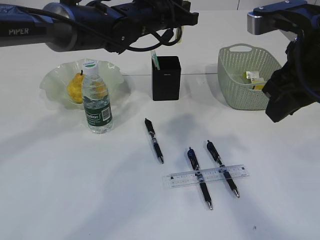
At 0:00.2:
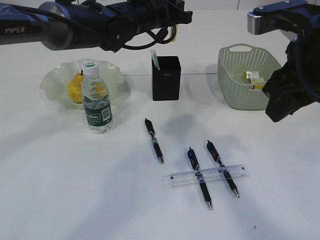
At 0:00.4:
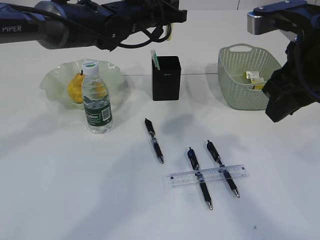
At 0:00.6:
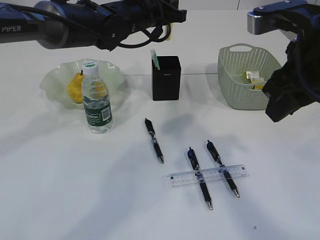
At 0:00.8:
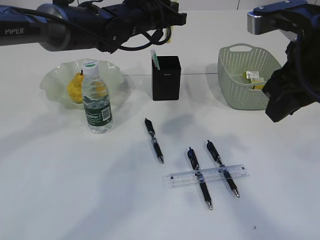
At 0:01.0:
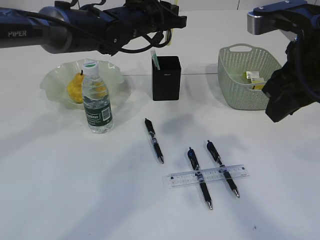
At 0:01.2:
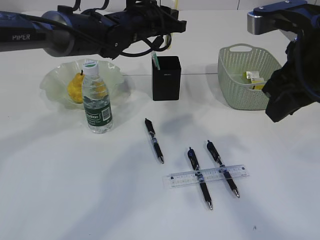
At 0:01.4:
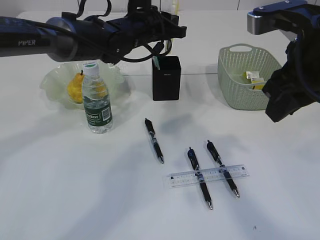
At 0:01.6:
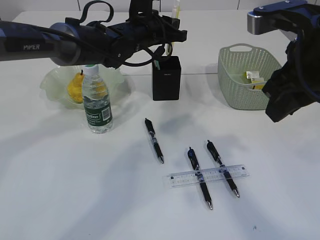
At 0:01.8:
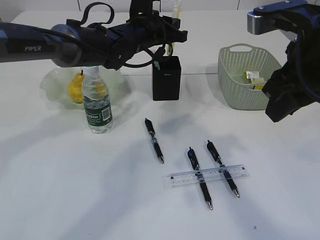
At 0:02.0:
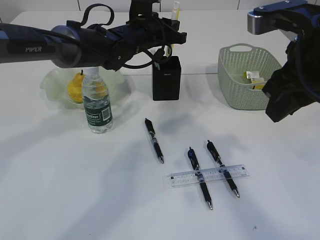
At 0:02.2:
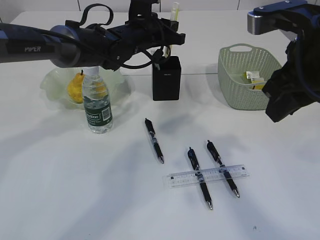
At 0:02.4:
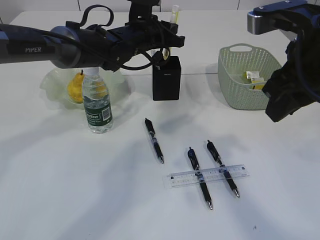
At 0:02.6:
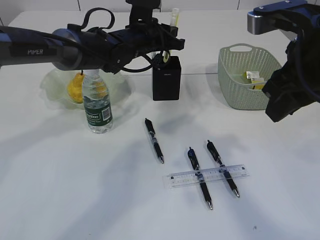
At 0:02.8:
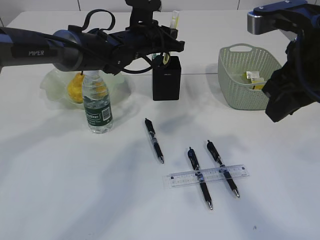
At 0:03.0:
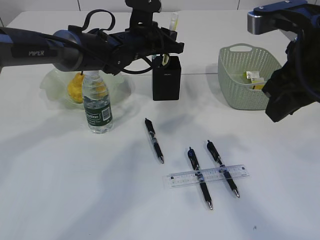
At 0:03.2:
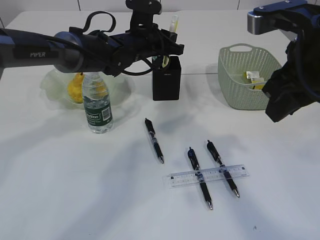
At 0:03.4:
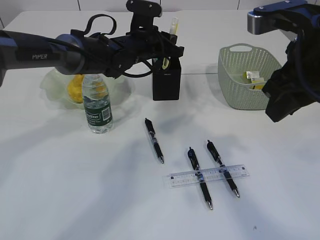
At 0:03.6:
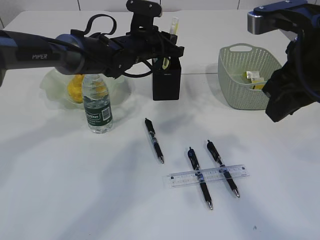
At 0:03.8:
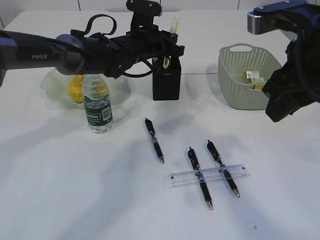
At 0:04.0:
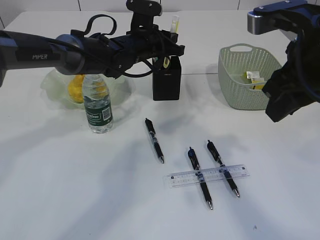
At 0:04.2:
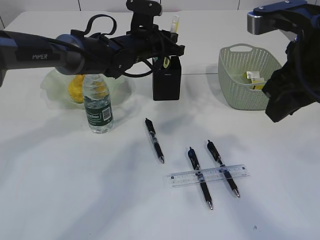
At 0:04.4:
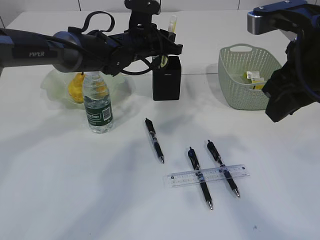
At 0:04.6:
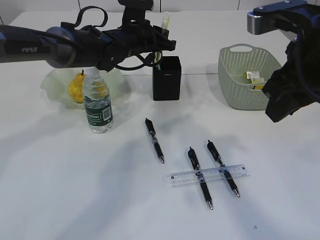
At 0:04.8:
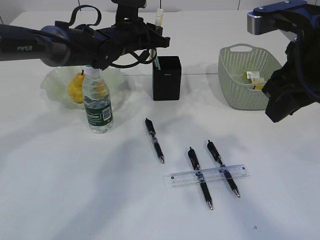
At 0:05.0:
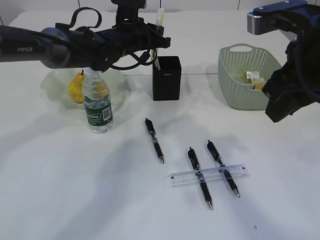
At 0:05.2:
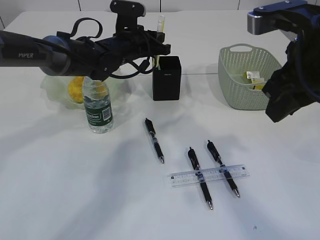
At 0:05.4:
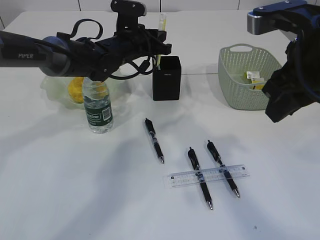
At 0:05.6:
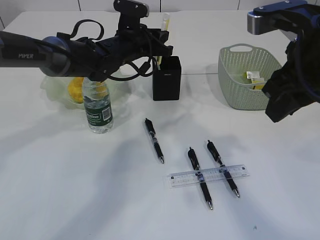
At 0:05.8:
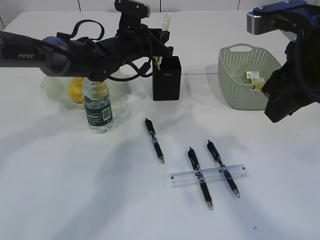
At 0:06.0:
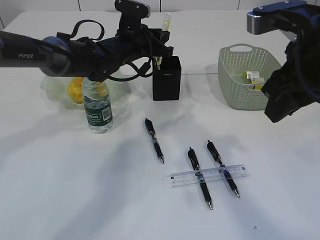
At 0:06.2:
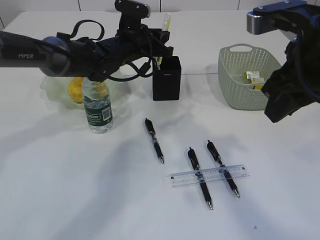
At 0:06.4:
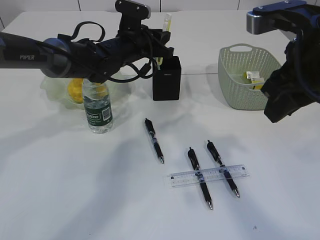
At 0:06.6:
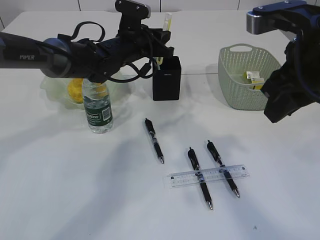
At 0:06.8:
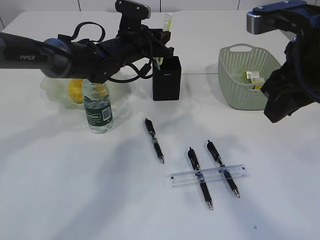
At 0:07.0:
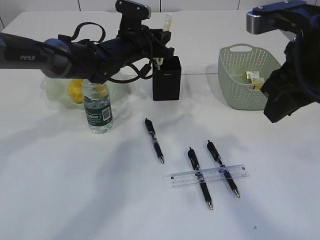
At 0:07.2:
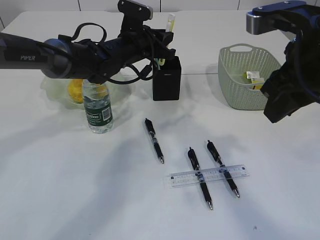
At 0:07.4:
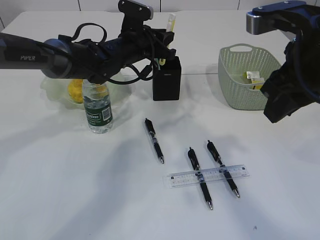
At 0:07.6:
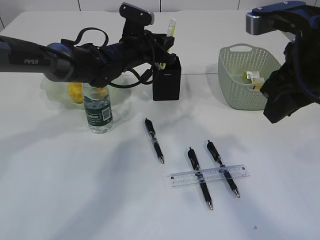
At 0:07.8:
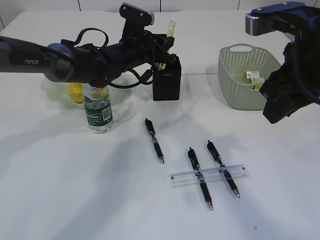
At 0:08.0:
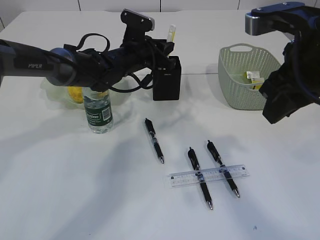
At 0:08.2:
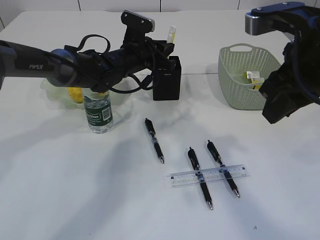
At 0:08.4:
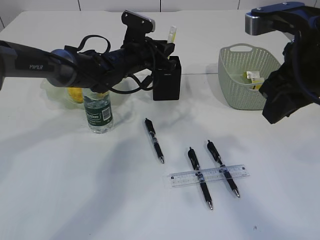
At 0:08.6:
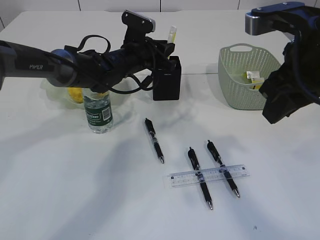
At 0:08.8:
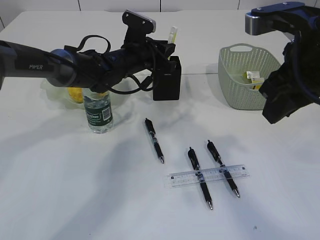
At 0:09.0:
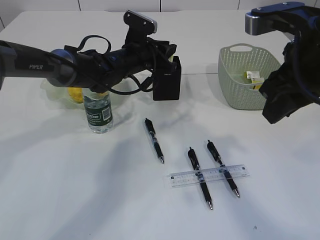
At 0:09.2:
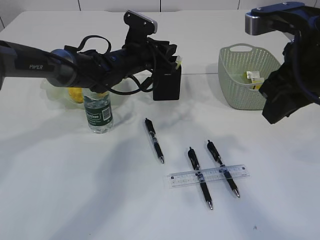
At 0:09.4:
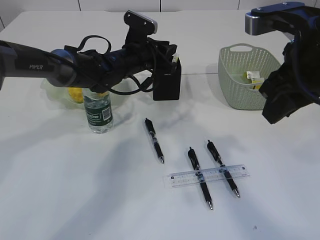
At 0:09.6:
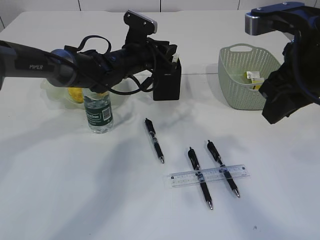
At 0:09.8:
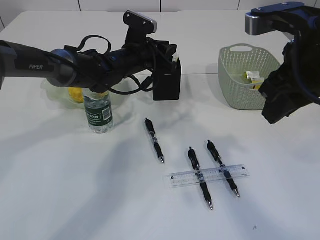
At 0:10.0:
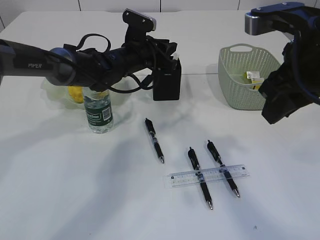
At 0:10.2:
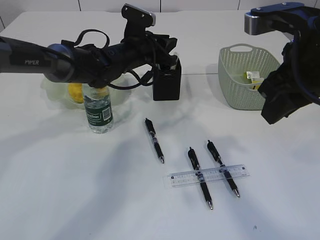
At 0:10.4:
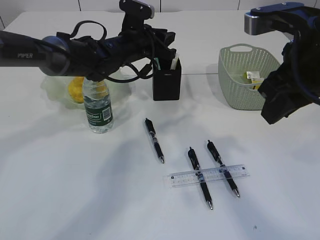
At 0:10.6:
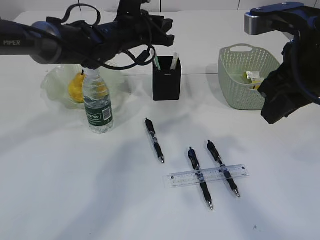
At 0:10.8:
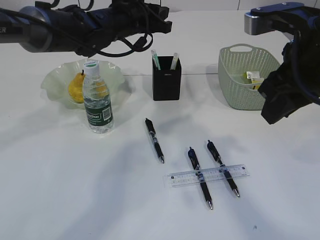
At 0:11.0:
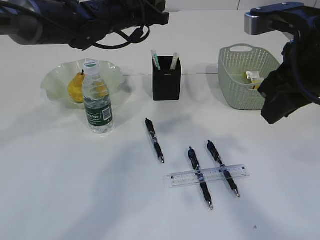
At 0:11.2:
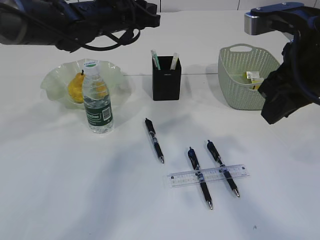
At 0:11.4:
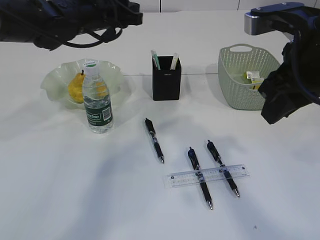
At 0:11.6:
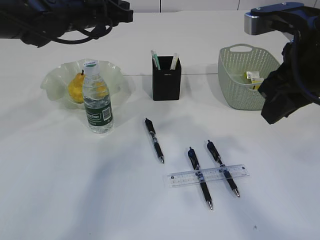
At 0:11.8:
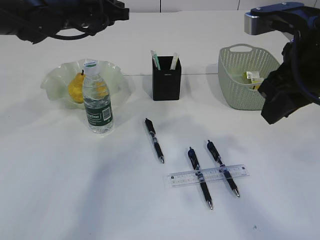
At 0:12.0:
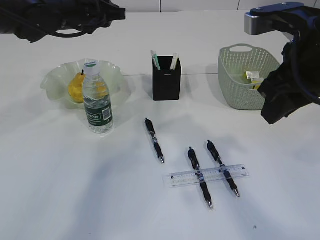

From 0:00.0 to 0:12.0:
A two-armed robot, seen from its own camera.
Step, from 0:00.0 to 0:10.4: place the yellow knife into the pen holder.
From 0:00.0 to 0:01.6: The grippers make only small movements.
From 0:01.6 to 0:03.0: The grippers stay close to where they were, moving slightly.
From 0:03.0 to 0:04.4: Both grippers stay about where they are.
From 0:04.4 to 0:06.0: The grippers move only a little.
From 0:06.0 to 0:07.6: Both grippers stay about where they are.
From 0:07.6 to 0:10.4: The grippers move only a little.
From 0:10.4 to 0:12.0: The left gripper goes about 15 cm to the left and upward.

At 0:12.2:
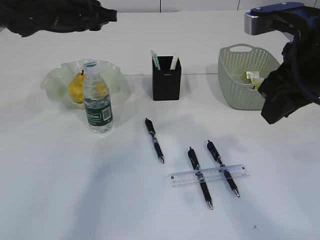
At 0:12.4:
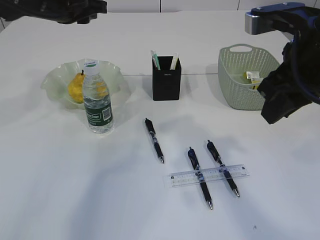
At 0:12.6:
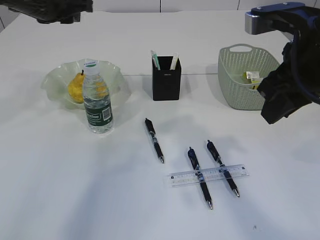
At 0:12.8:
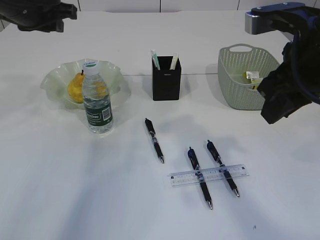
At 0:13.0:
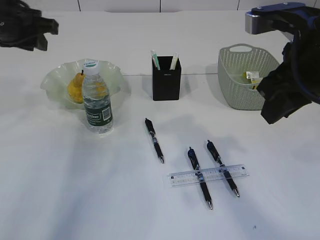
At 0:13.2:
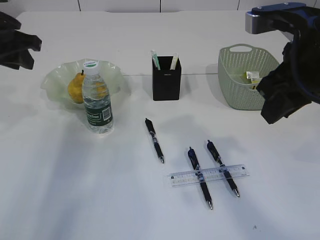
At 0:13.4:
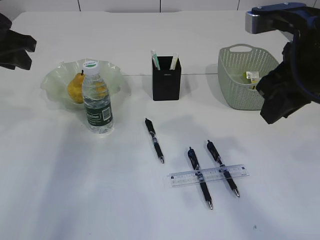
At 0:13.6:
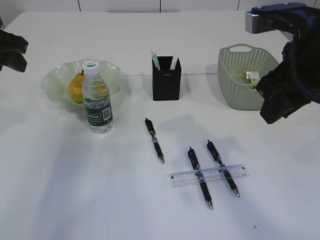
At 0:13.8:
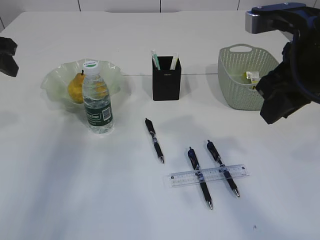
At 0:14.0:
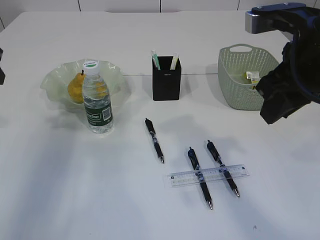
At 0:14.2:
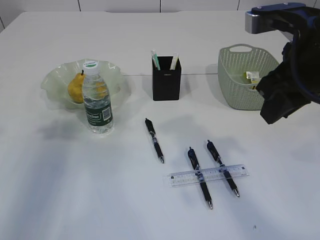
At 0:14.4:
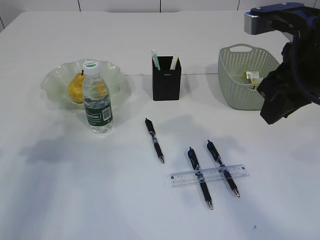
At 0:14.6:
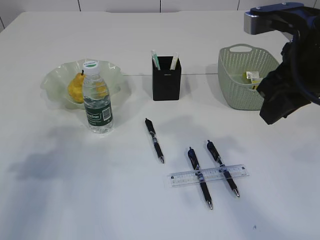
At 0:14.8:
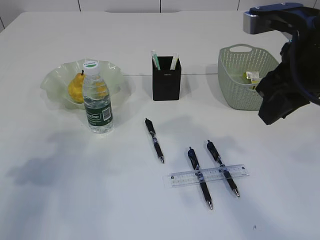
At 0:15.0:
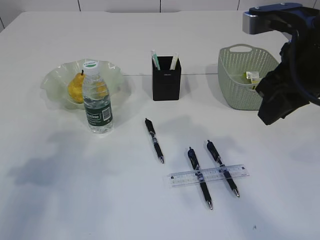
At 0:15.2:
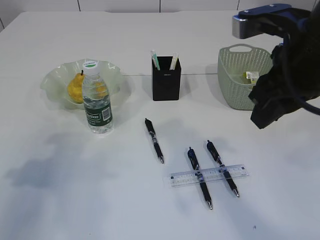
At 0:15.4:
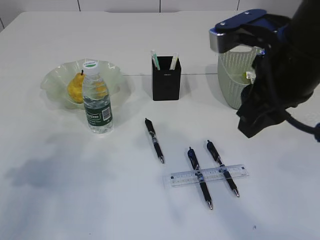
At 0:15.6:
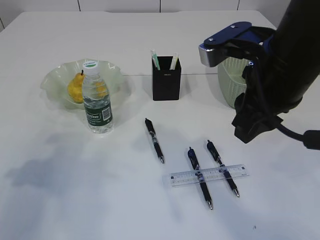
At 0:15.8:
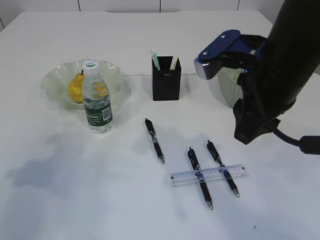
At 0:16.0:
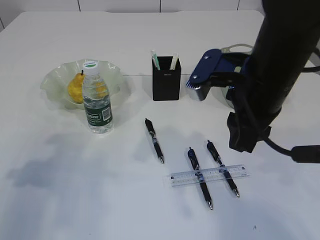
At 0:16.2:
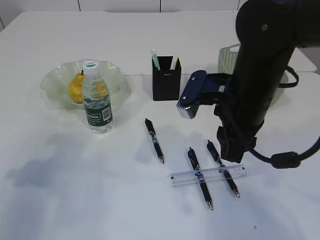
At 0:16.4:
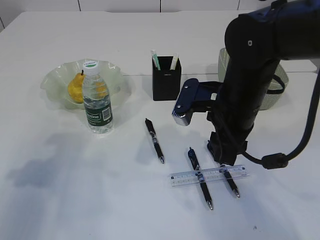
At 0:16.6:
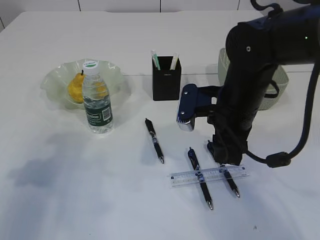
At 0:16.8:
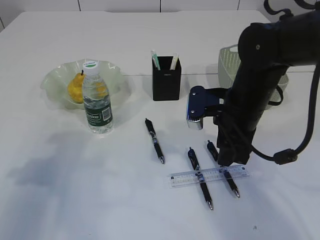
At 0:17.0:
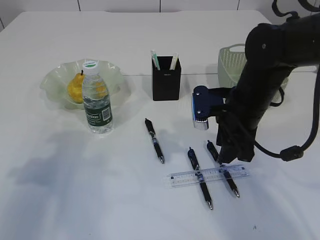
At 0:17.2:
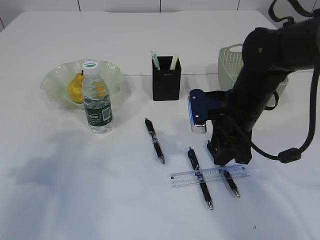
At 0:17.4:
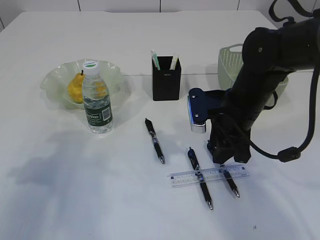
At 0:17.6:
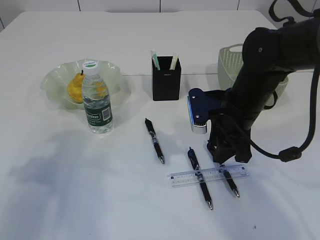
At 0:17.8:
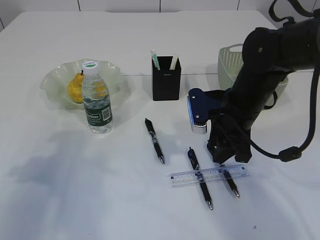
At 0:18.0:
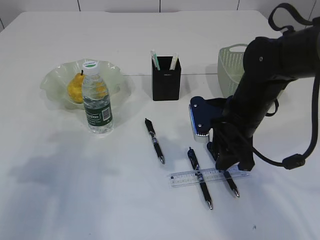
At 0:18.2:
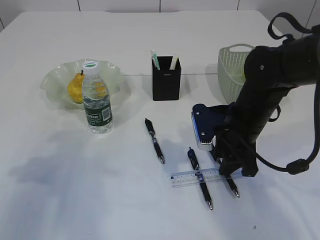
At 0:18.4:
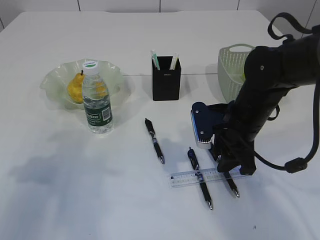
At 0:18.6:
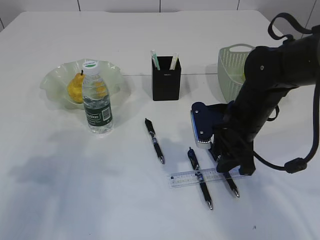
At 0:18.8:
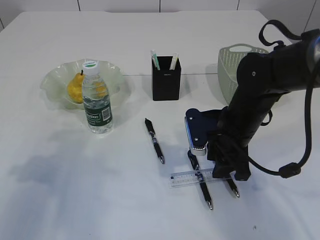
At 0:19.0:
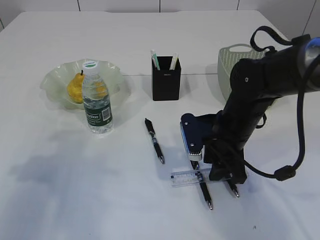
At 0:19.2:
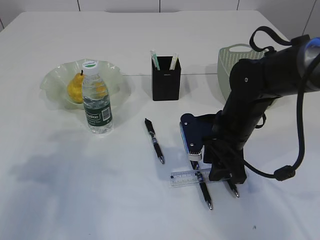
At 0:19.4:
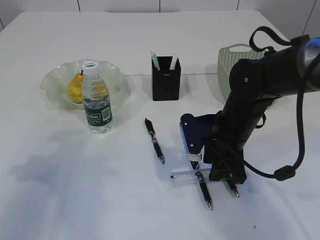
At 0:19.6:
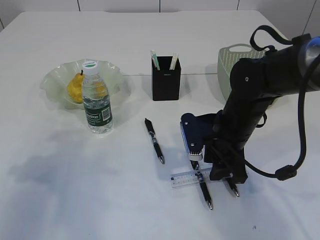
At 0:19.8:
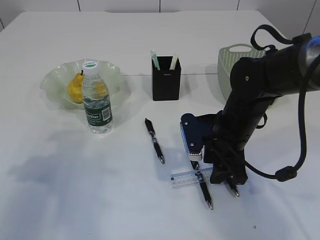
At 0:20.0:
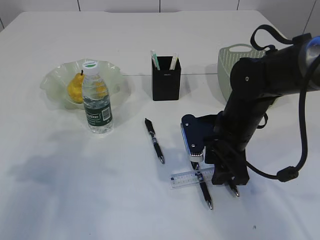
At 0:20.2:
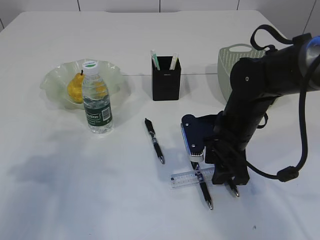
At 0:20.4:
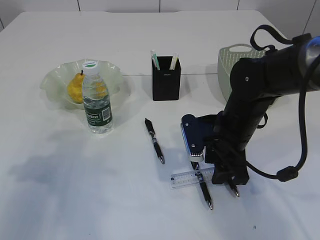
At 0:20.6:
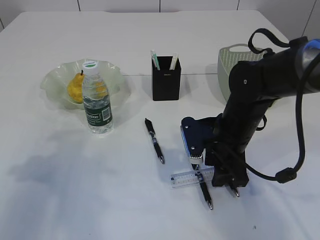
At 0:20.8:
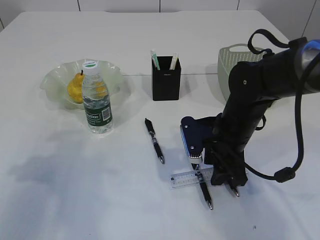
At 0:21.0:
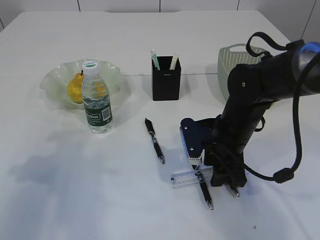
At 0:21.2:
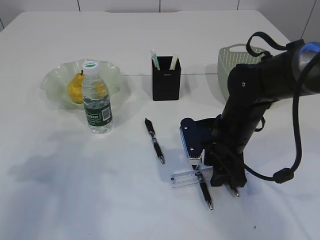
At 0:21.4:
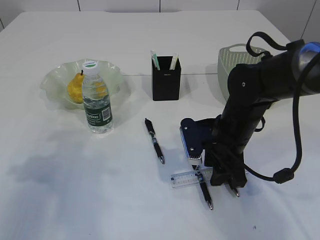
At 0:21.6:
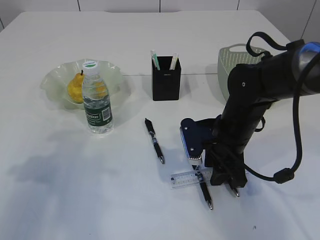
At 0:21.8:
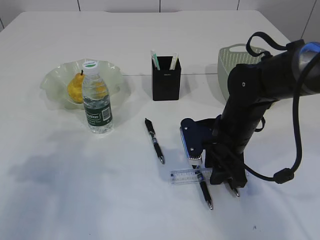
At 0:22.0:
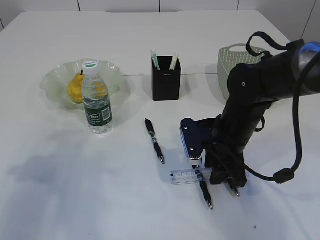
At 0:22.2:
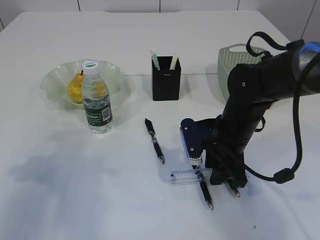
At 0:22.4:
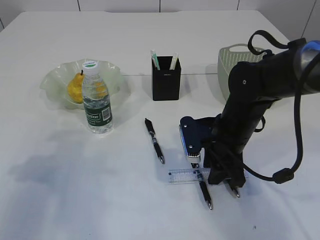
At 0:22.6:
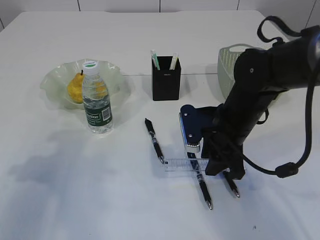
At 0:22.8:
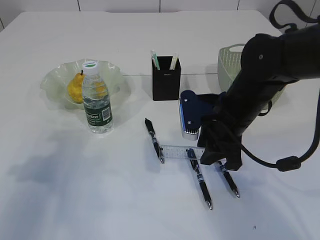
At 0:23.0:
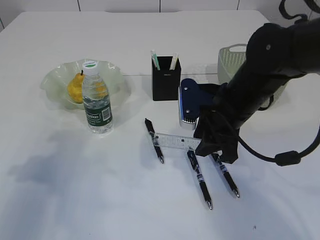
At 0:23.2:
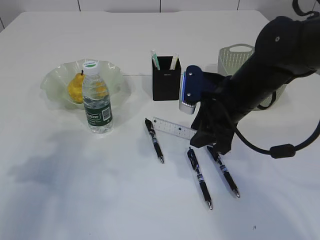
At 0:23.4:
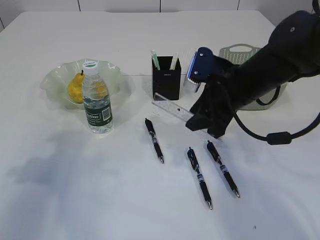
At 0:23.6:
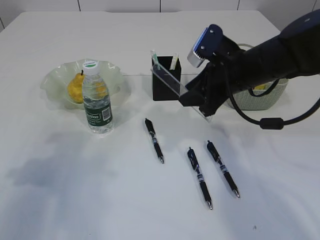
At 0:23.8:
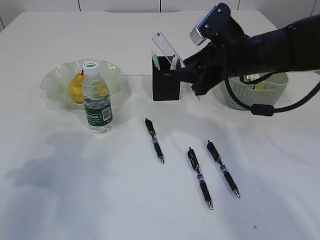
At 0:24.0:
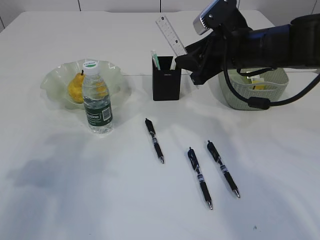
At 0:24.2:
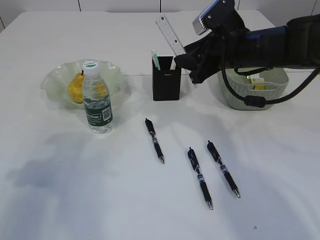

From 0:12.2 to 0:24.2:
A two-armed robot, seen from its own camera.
Step, from 0:12.2 to 0:23.6: pick up the ruler.
From 0:12.2 to 0:13.8: The left gripper is displaced to the left and backward by about 15 cm, and opens.
From 0:13.8 to 0:15.2: The left gripper moves backward and downward, about 15 cm.
From 0:15.2 to 0:16.6: The right gripper travels downward and forward by about 15 cm.
From 0:16.6 to 0:18.2: The right gripper changes place by roughly 5 cm.
From 0:18.2 to 0:19.8: There are only small adjustments of the grippers.
From 0:19.8 to 0:21.2: Neither gripper changes place.
From 0:21.2 to 0:22.6: The grippers stay close to where they were, moving slightly.
From 0:22.6 to 0:24.2: The right gripper goes approximately 10 cm upward and forward.
